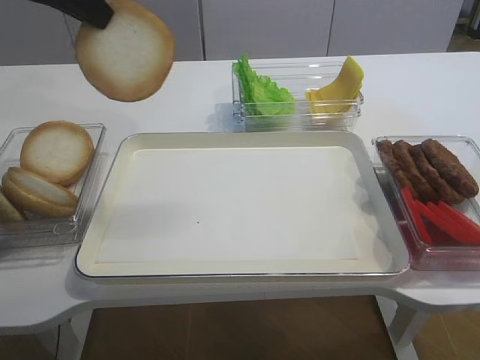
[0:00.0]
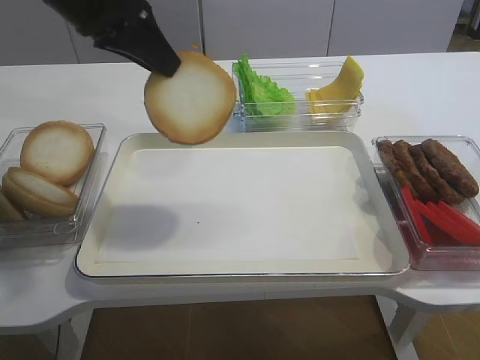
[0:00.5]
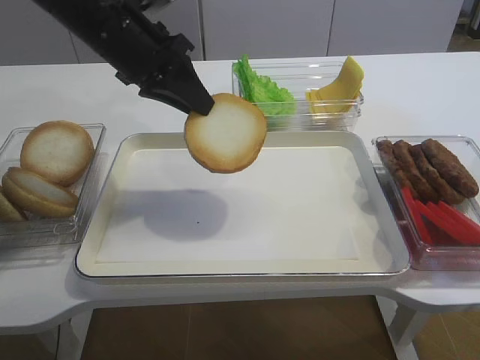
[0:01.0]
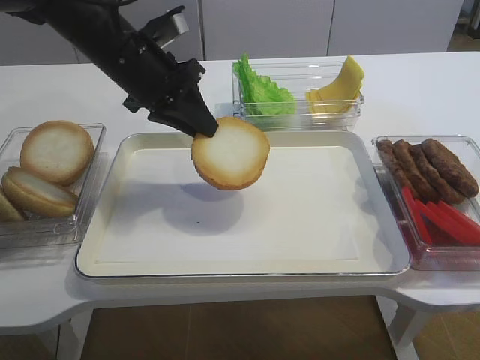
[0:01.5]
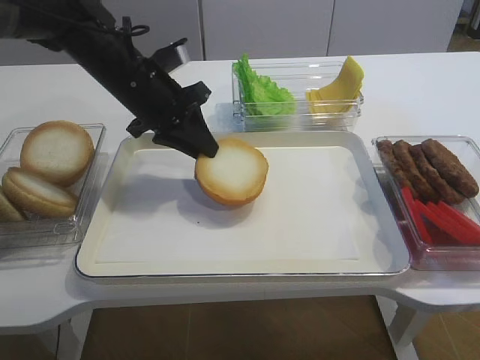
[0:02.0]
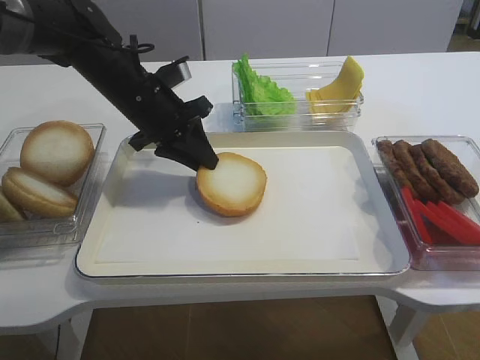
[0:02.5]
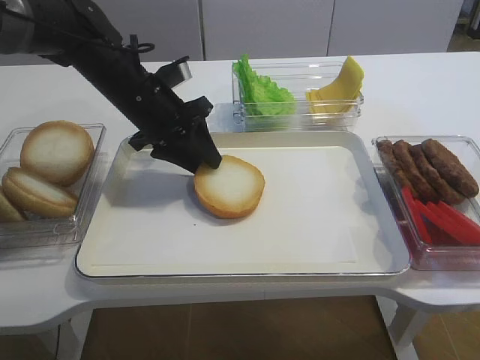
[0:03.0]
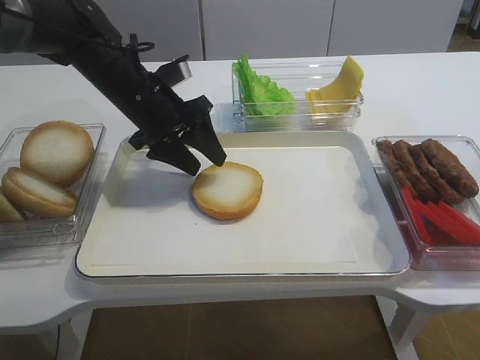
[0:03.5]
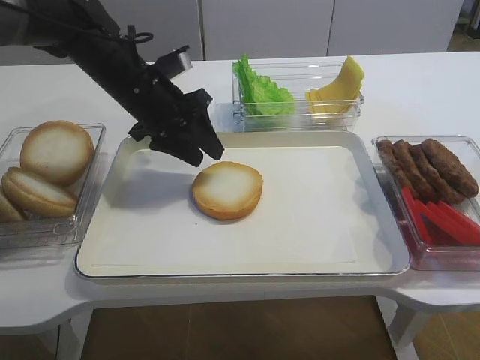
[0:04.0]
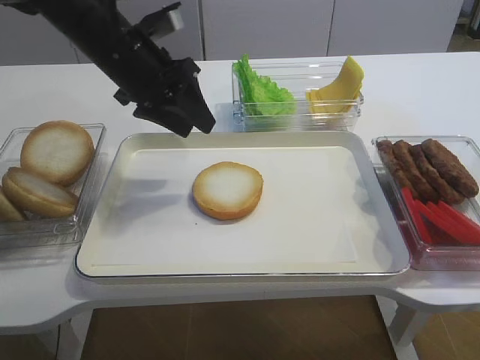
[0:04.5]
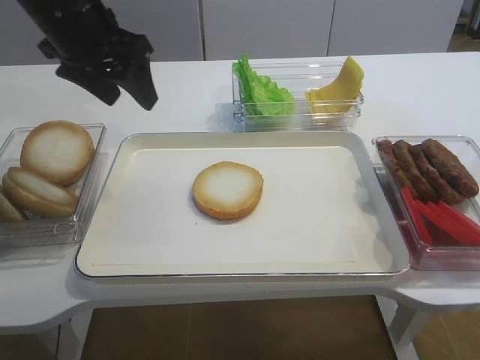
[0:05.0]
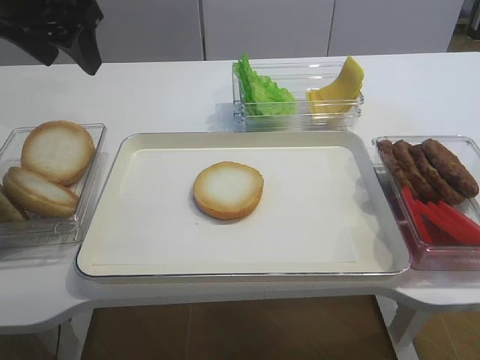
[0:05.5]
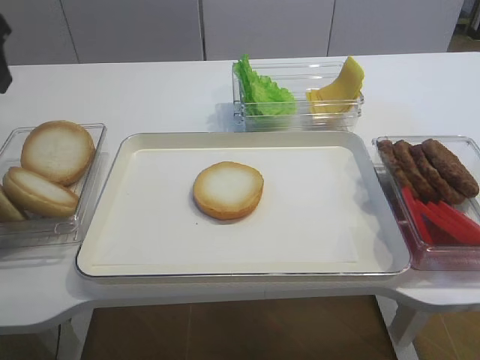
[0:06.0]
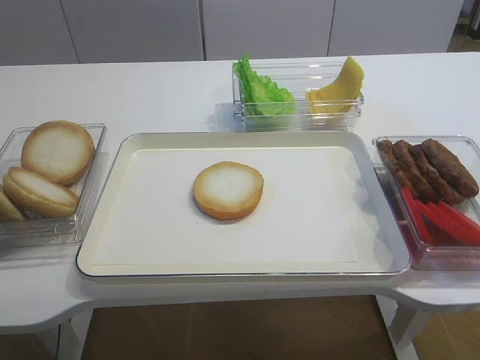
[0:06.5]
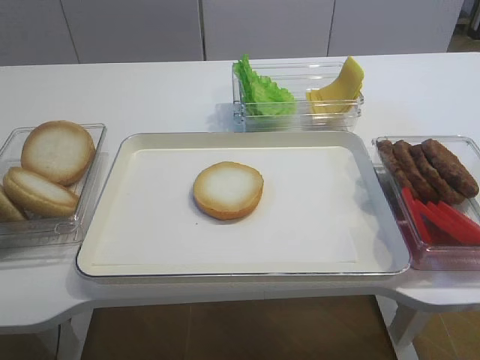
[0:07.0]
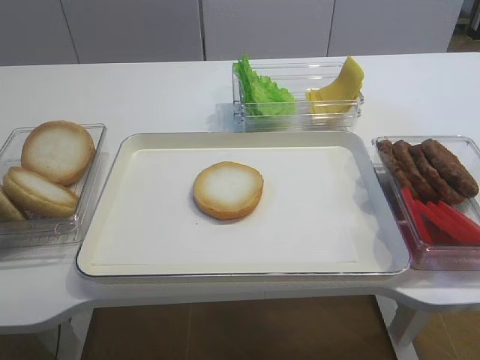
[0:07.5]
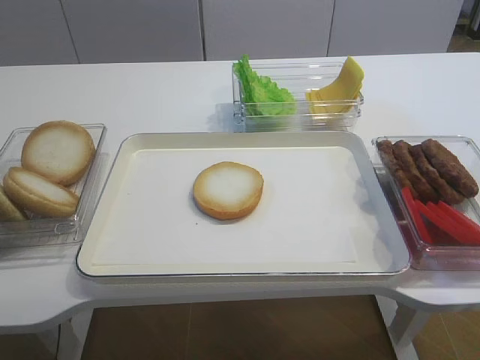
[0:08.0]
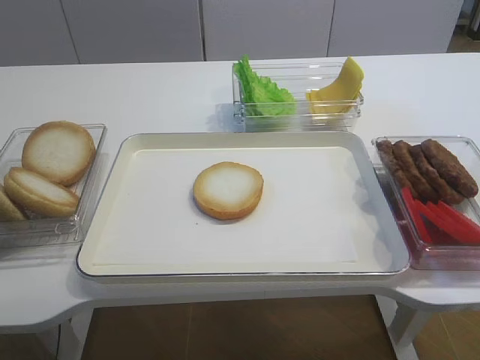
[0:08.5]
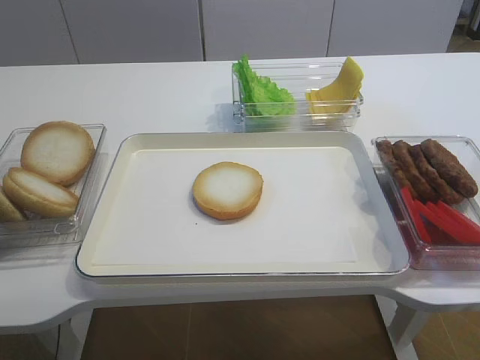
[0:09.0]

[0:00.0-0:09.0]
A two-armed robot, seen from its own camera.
Step, 0:00.0 to 0:04.0: Place the bread slice on the tray with the left gripper.
0:00.0 to 0:02.0: The left gripper is displaced downward, to the right and forward by roughly 20 cm.
0:02.0 to 0:04.5: The left gripper opens its fingers.
0:04.5 to 0:07.0: The left gripper goes some 30 cm backward and to the left.
